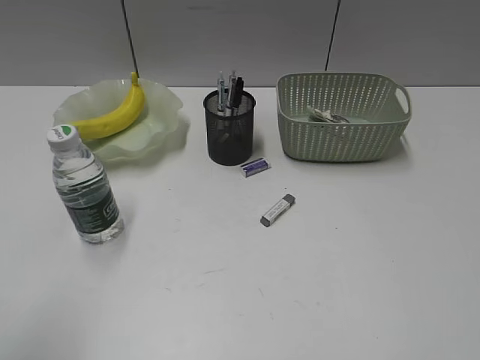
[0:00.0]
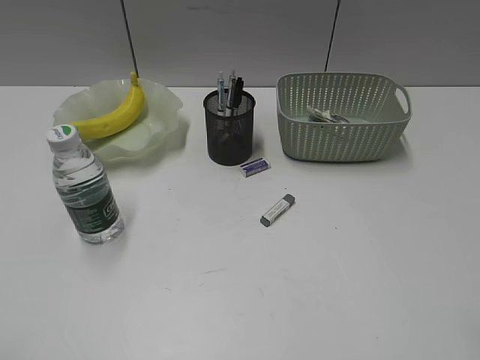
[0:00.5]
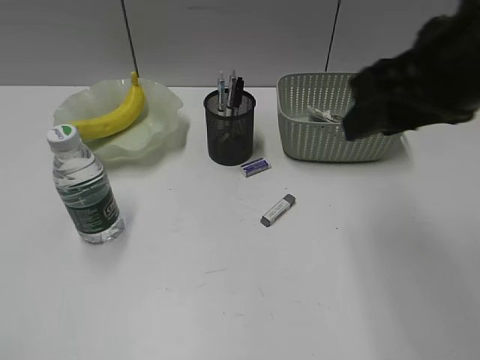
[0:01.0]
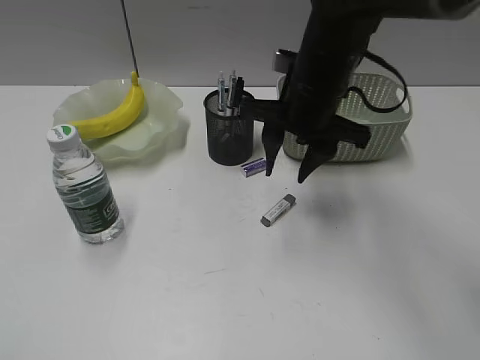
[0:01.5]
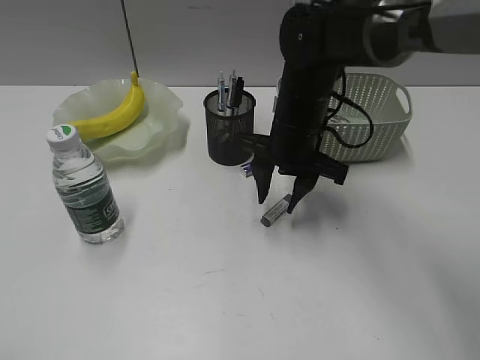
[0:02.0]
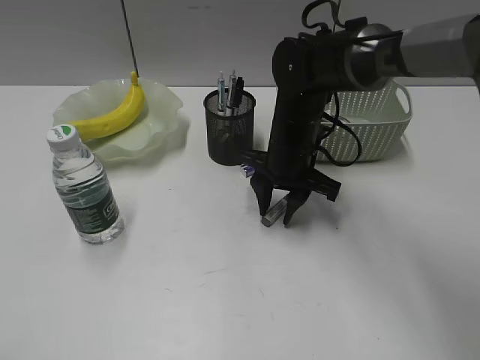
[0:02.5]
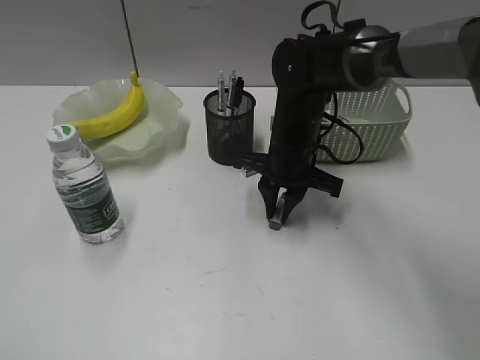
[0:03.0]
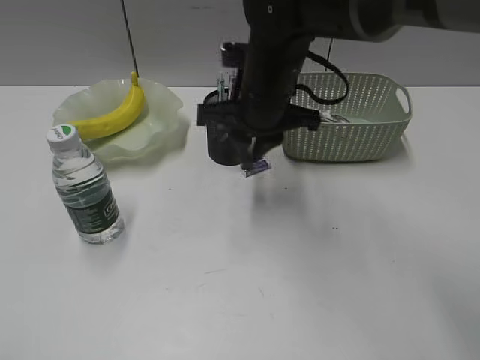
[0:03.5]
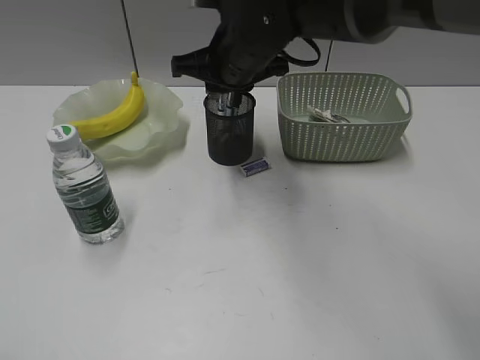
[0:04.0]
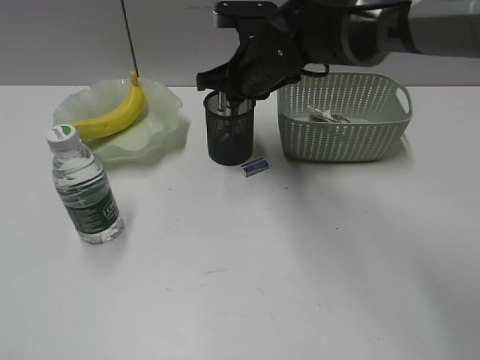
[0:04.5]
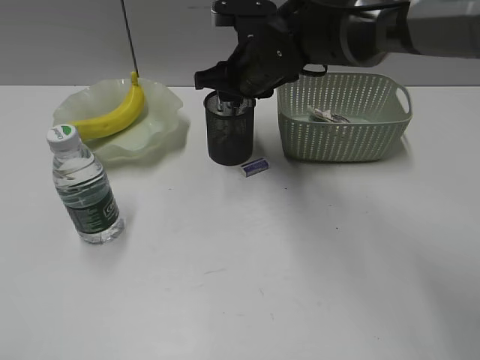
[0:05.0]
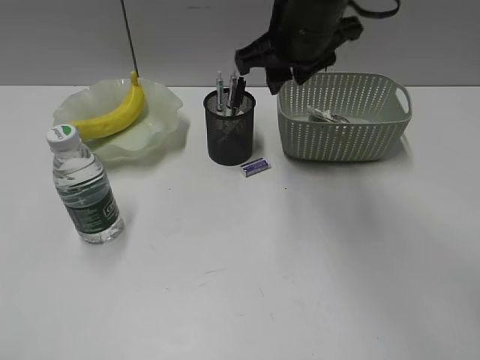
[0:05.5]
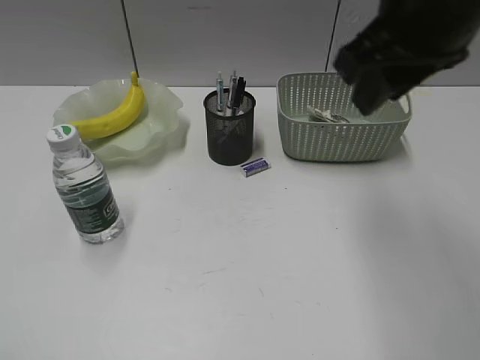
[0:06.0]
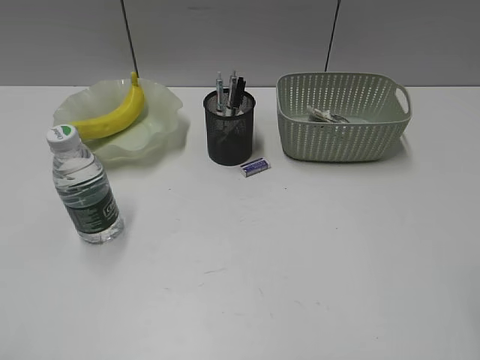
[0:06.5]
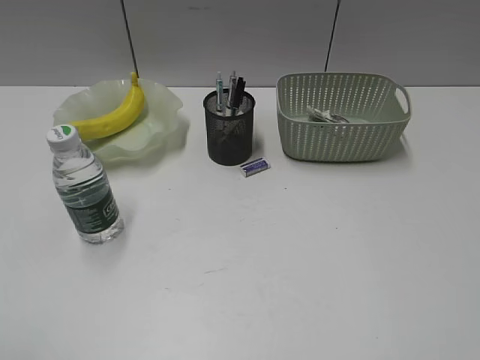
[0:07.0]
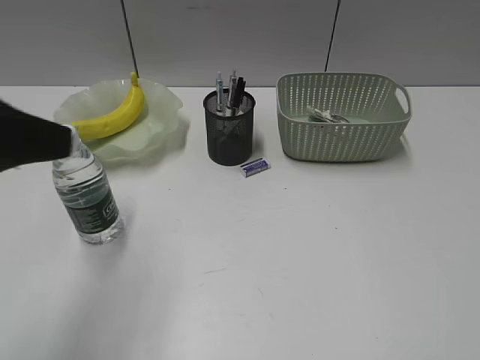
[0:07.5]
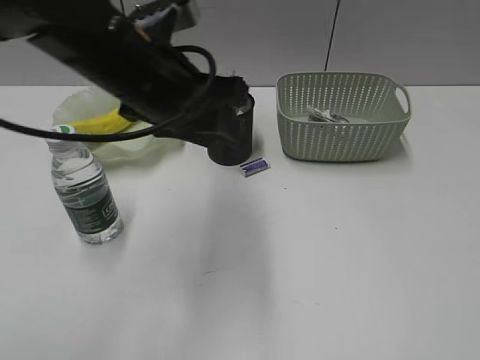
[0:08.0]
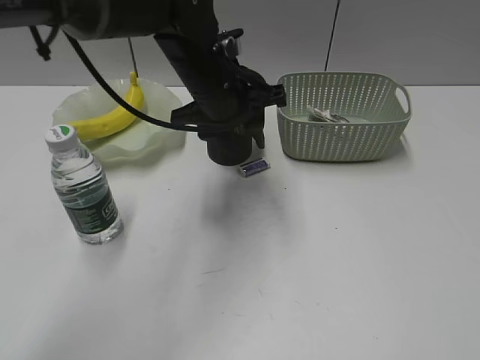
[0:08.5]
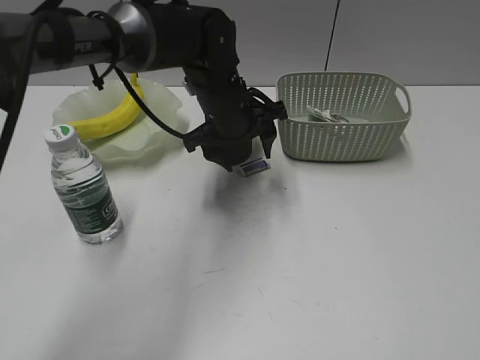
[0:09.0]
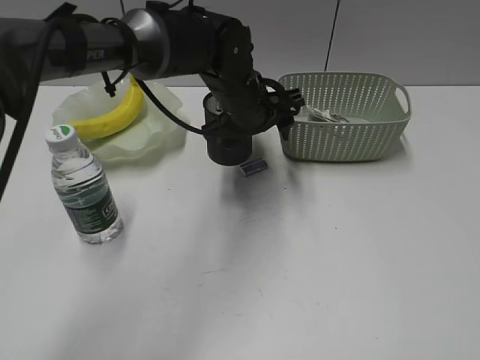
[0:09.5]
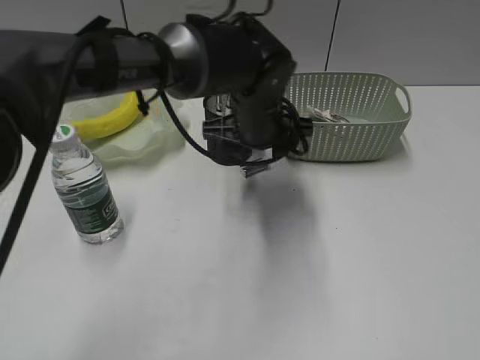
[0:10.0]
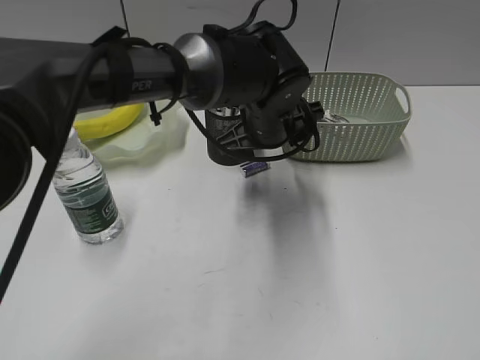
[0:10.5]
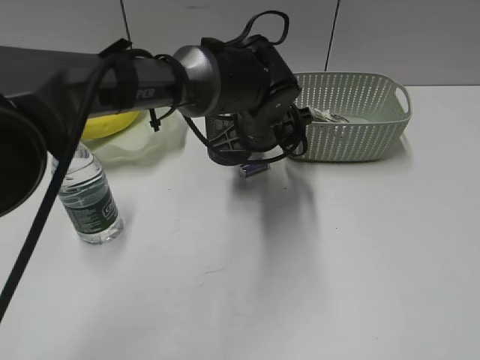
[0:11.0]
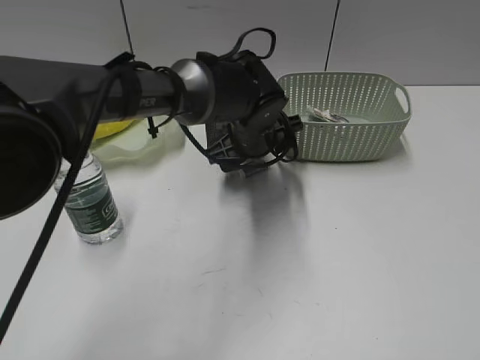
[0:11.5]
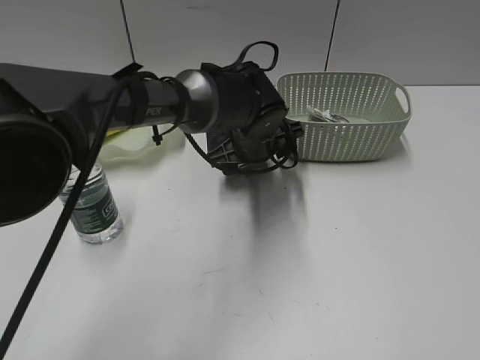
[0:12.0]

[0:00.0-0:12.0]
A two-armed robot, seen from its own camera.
Step, 0:00.0 to 0:02.5: Grasp the eraser with right gripper.
Step, 0:03.0 to 0:05.0: Place the eraser in pen holder with right gripper.
0:00.0 to 0:02.0: The right gripper goes roughly 40 cm forward and to the left, while the left gripper shifts roughly 10 cm backward.
0:02.0 to 0:04.0: The right gripper travels upward and to the left by roughly 10 cm, and closes up.
0:04.0 to 0:06.0: The right gripper is displaced to the right, backward and upward by some 20 cm.
0:06.0 to 0:08.0: The left gripper goes roughly 35 cm forward and to the right. Meanwhile the right gripper heads backward and to the right, covering about 35 cm.
0:08.0 to 0:10.0: The left gripper shifts some 20 cm to the right, downward and forward.
0:10.0 to 0:12.0: The left gripper travels downward by about 5 cm.

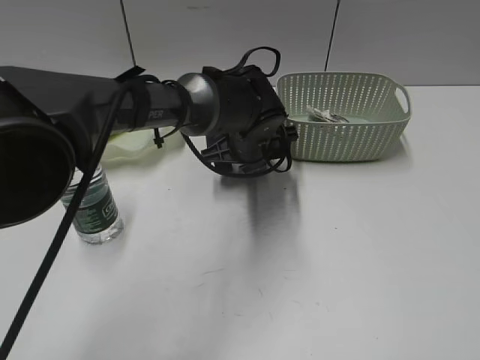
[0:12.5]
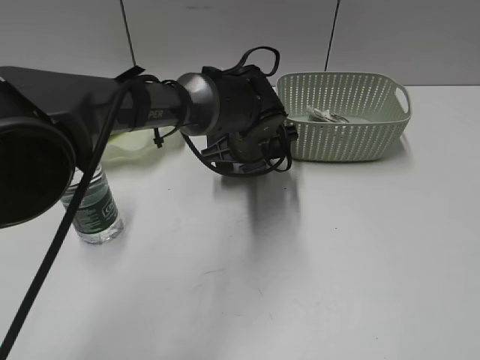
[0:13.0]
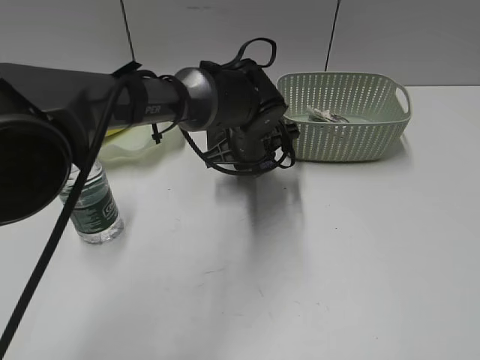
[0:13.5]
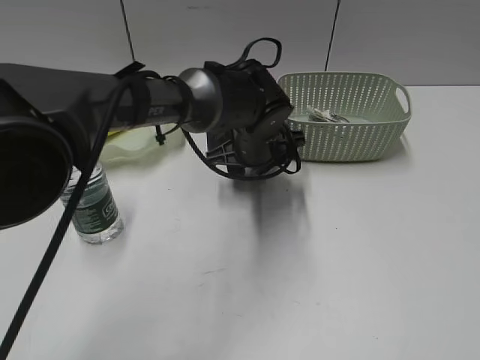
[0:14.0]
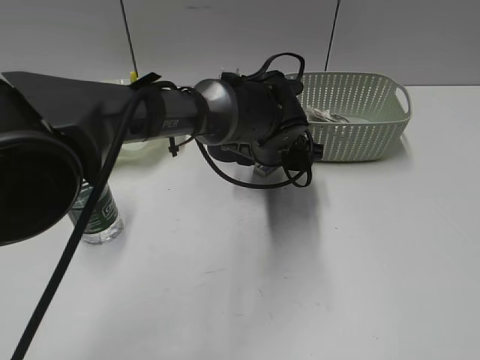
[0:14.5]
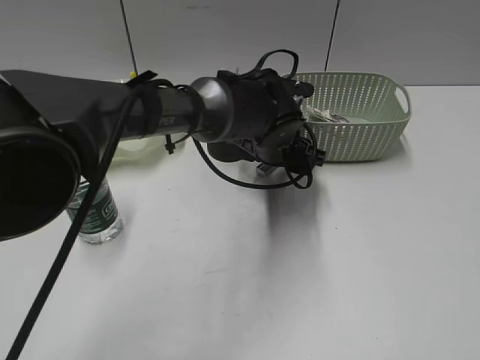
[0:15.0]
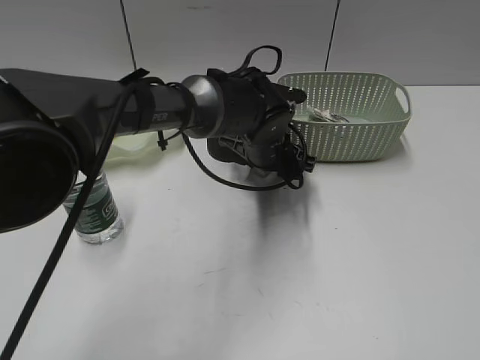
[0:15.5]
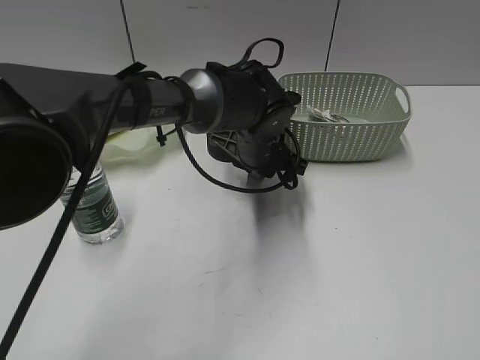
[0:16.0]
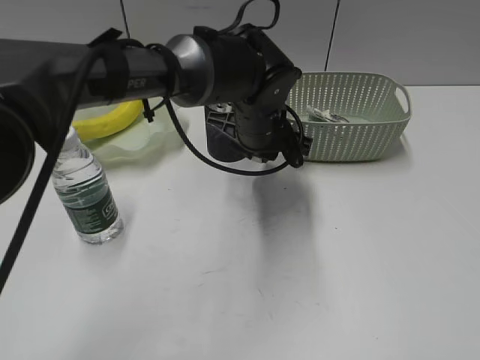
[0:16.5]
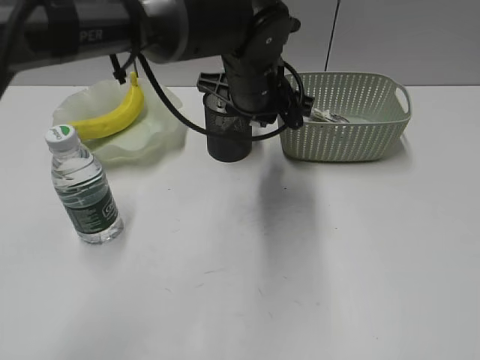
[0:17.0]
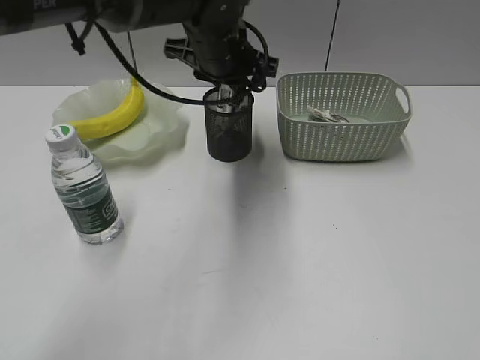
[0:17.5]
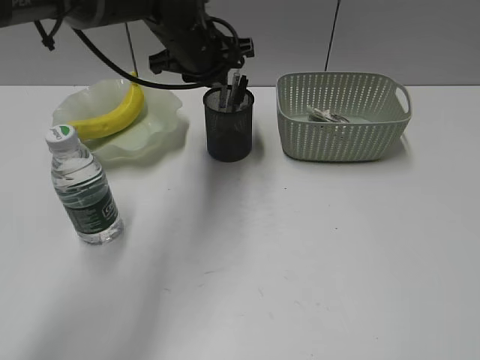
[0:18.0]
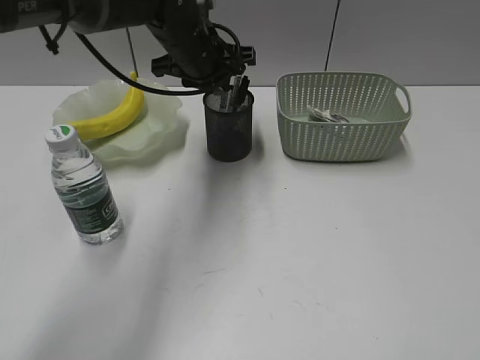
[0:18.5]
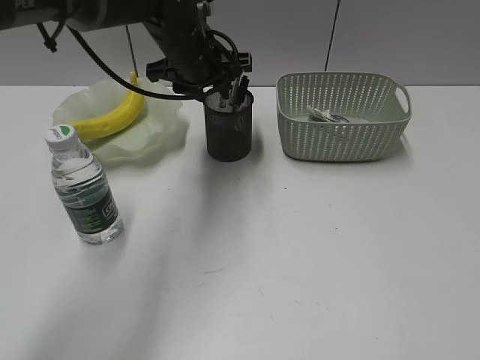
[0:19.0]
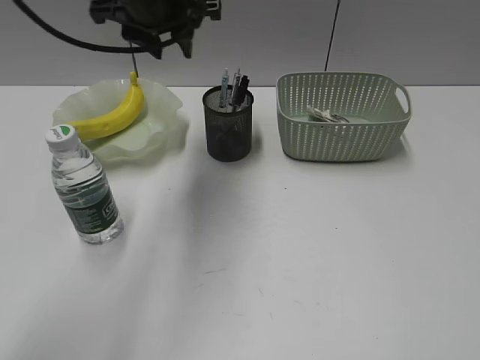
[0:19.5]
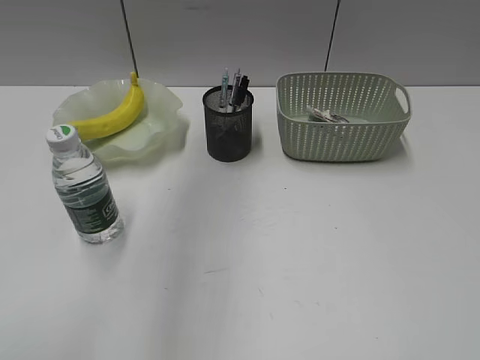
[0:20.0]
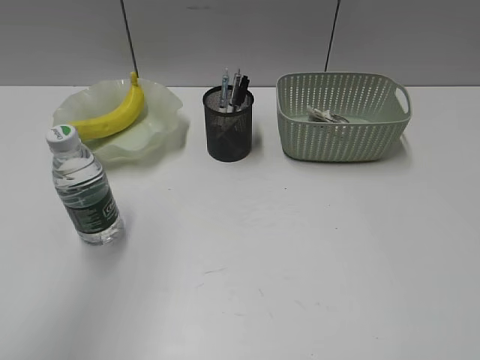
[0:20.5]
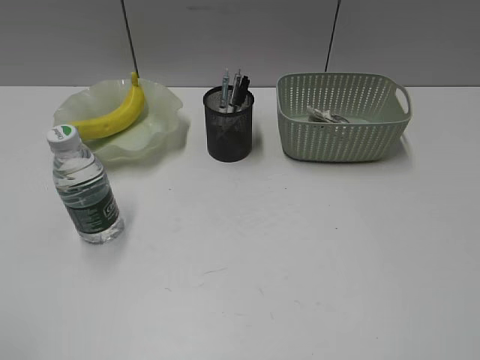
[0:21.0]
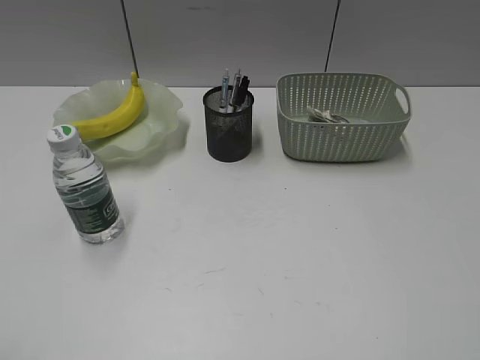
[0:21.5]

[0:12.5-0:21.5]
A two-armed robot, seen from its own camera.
Step, 0:12.5 to 0:15.5: Grasp the eraser with left gripper.
Step, 0:16.0 to 0:18.5: Place the eraser in pen holder with left gripper.
0:12.5 to 0:14.5: The left gripper closes, then opens again.
0:14.5 to 0:17.0: The left gripper shifts some 10 cm upward, and closes.
0:17.0 to 0:19.5: The left gripper is displaced to the left and upward by roughly 15 cm.
0:19.5 to 0:21.5: The left gripper shifts roughly 50 cm backward and to the left.

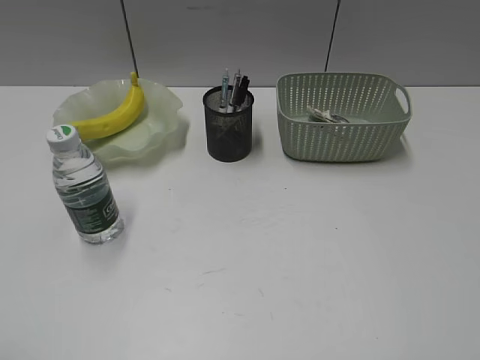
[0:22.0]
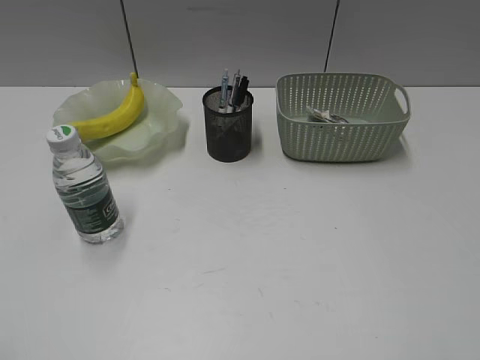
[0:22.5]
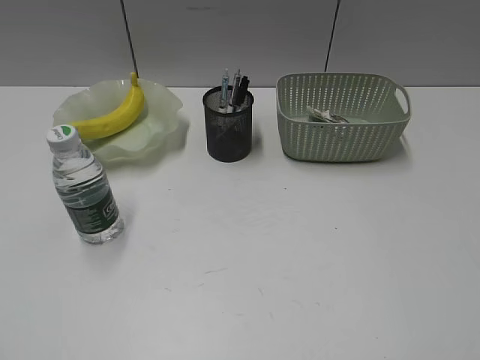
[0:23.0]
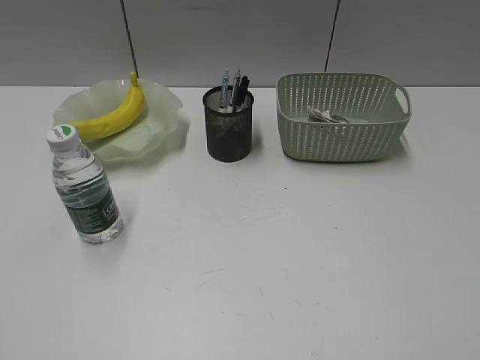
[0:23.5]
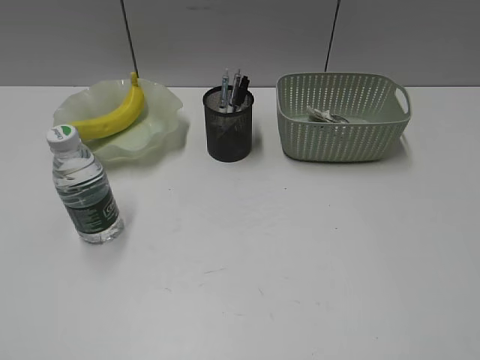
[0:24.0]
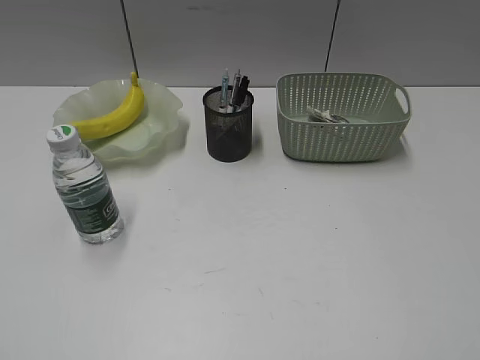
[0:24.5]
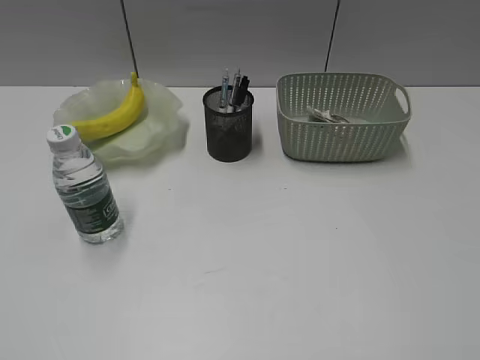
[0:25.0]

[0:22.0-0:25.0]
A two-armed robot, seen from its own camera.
0:23.5 to 0:25.0: Both grippers stay put.

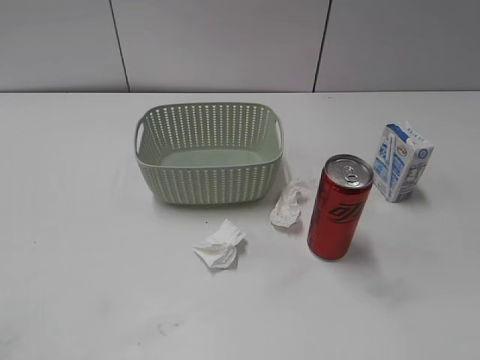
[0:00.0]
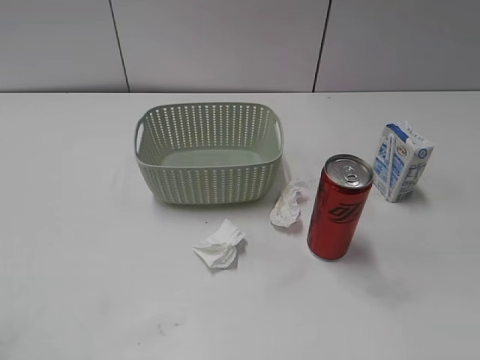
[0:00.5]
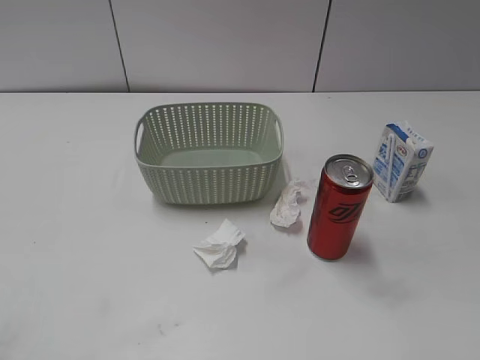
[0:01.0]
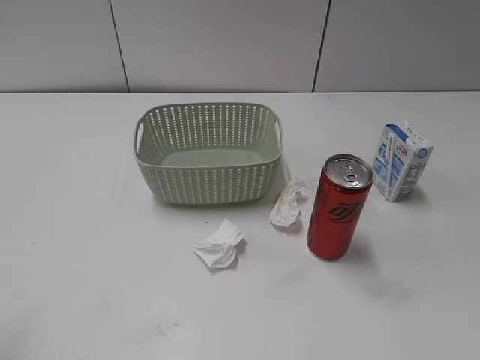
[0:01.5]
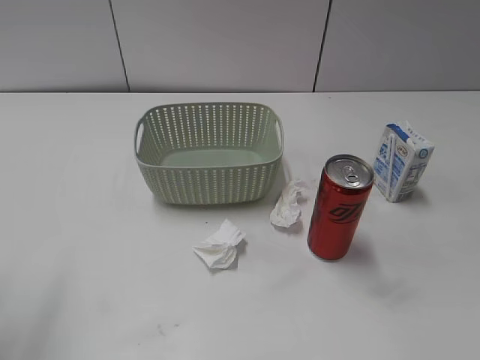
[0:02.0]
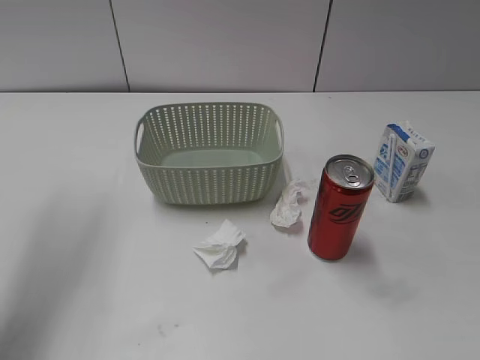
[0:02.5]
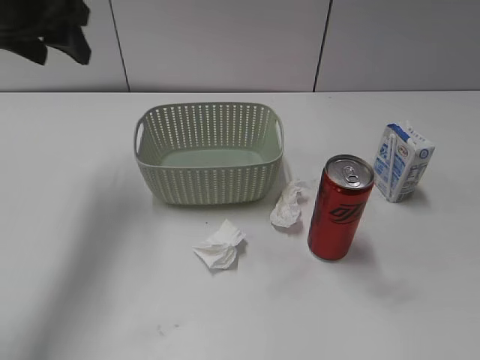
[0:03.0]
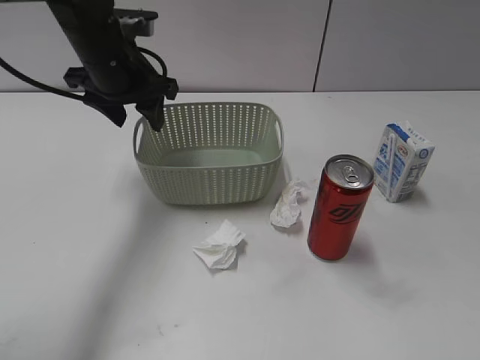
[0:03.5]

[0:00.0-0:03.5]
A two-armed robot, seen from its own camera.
0:02.0 to 0:03.5: The left gripper is displaced forward and to the right by approximately 30 cm.
